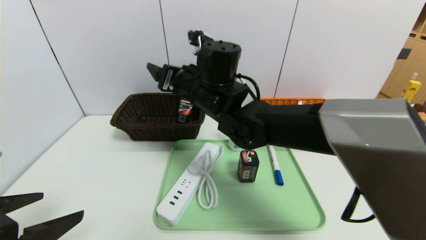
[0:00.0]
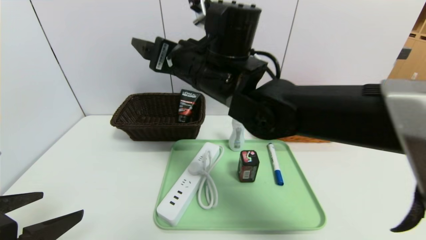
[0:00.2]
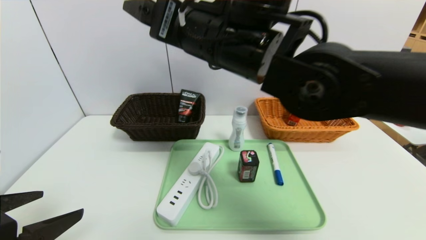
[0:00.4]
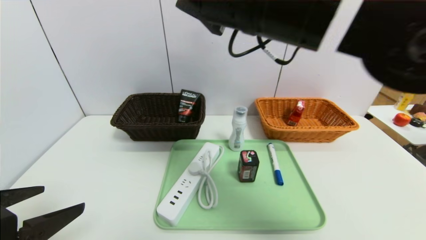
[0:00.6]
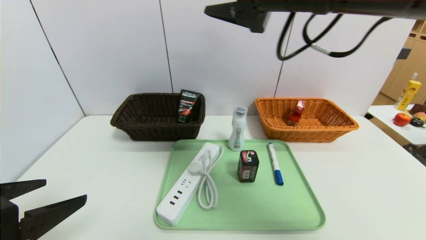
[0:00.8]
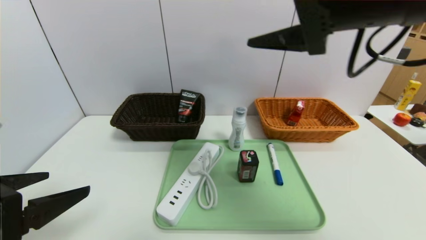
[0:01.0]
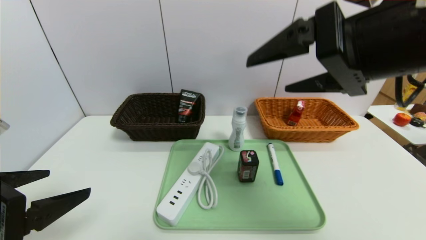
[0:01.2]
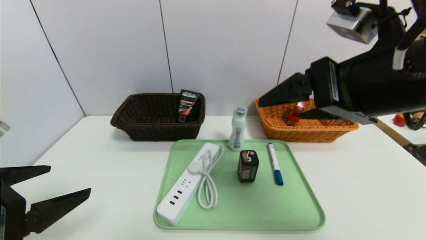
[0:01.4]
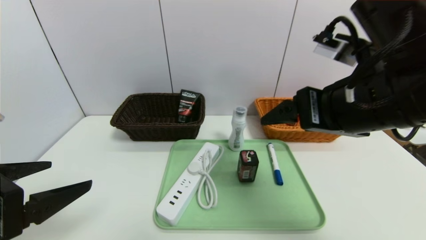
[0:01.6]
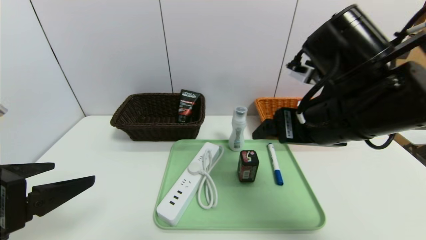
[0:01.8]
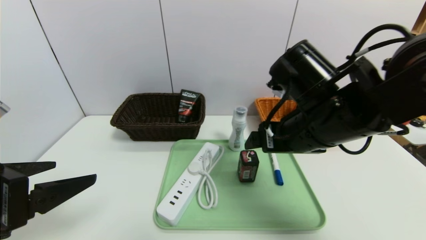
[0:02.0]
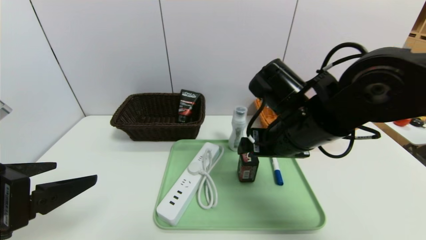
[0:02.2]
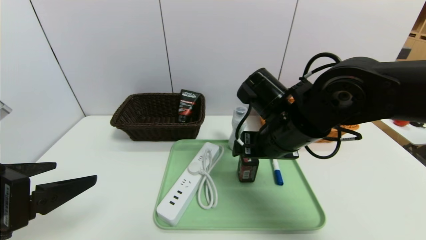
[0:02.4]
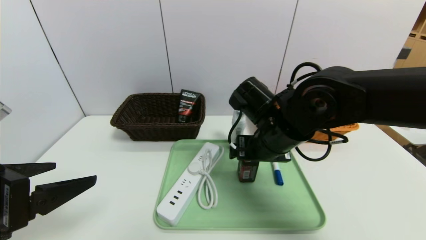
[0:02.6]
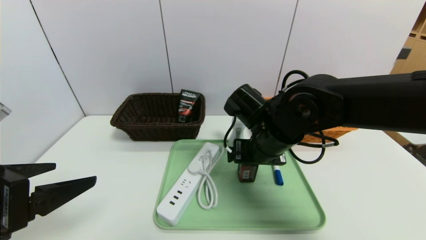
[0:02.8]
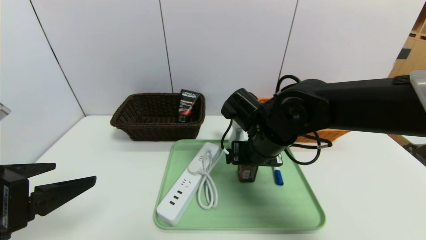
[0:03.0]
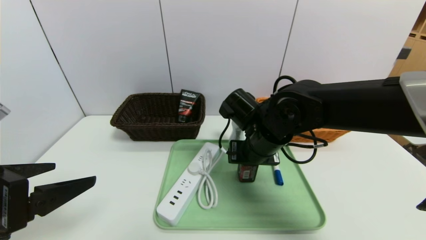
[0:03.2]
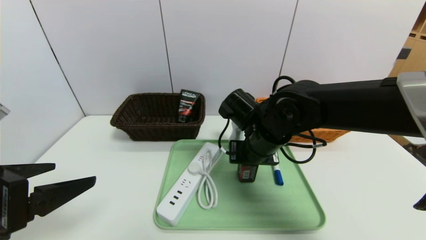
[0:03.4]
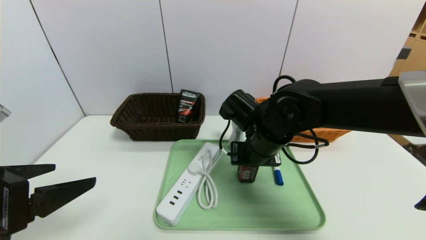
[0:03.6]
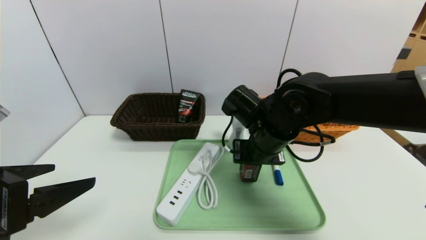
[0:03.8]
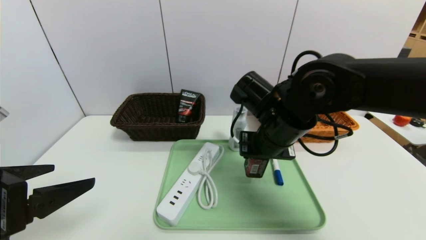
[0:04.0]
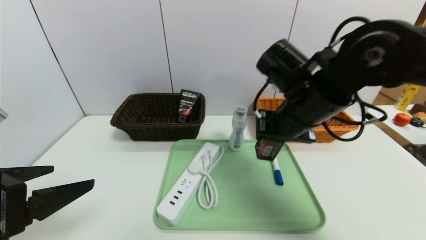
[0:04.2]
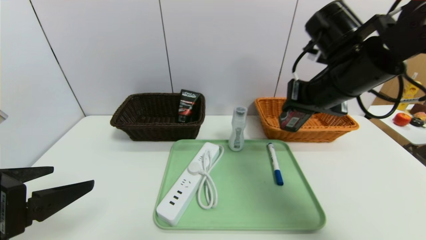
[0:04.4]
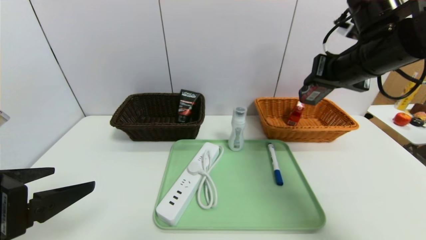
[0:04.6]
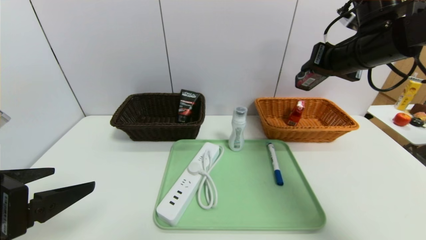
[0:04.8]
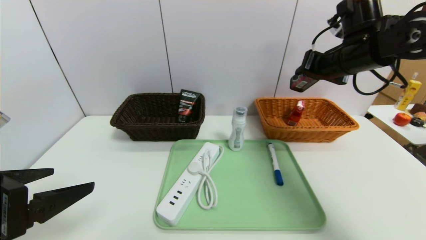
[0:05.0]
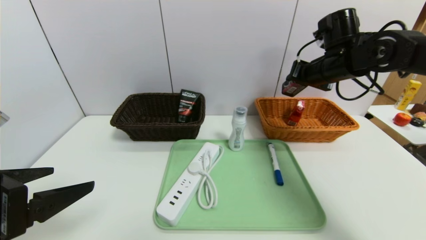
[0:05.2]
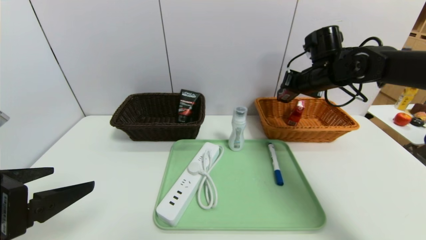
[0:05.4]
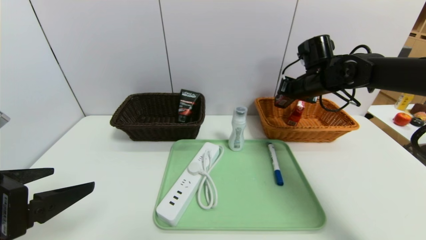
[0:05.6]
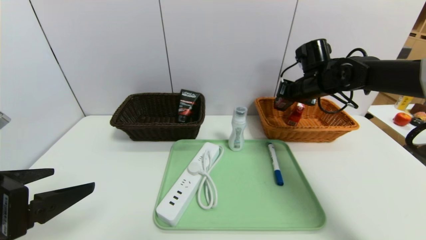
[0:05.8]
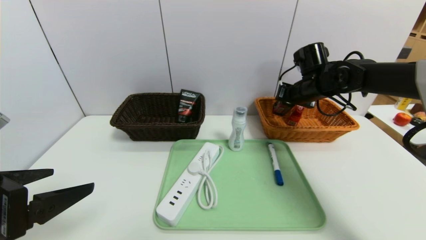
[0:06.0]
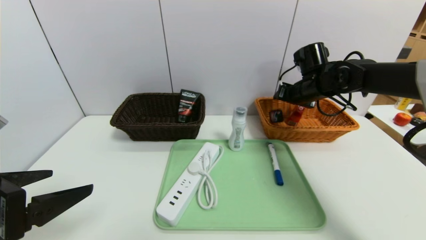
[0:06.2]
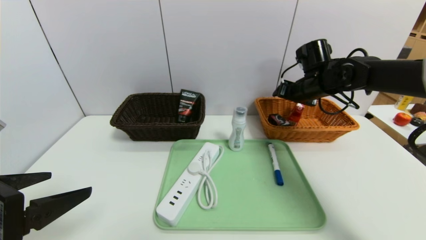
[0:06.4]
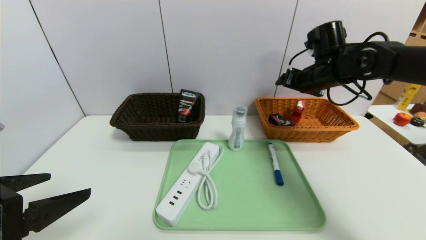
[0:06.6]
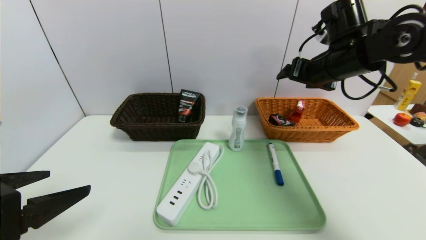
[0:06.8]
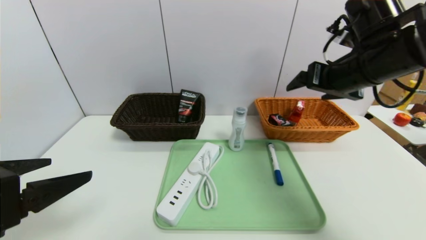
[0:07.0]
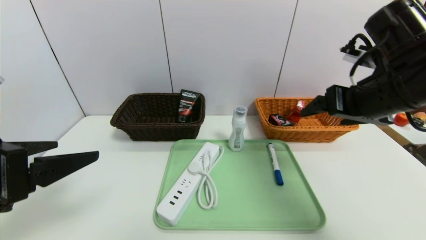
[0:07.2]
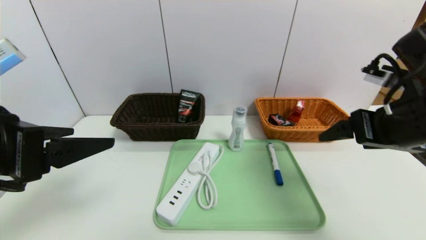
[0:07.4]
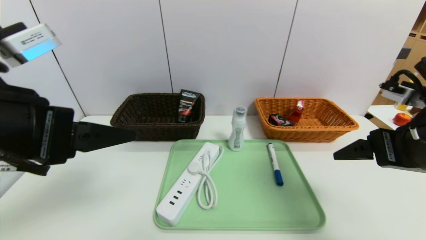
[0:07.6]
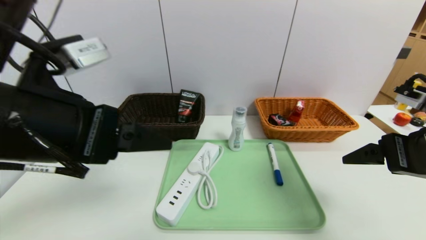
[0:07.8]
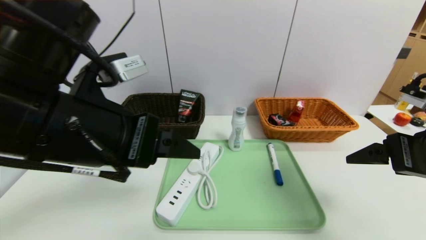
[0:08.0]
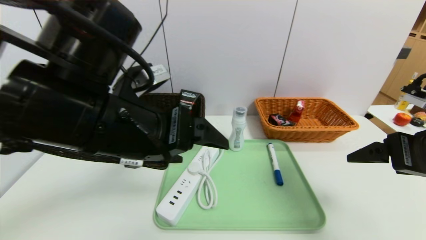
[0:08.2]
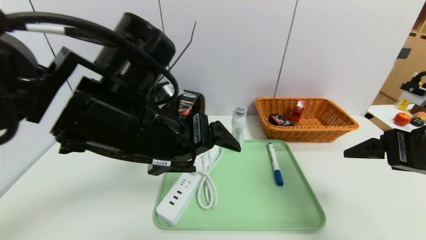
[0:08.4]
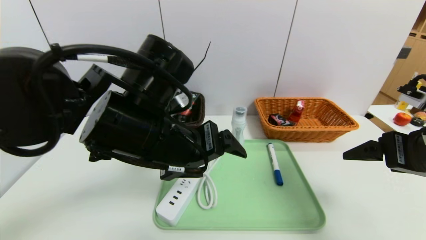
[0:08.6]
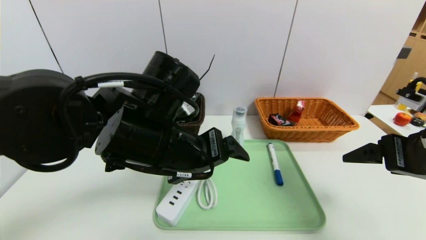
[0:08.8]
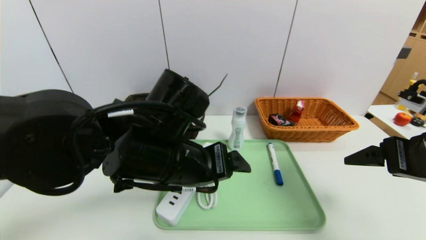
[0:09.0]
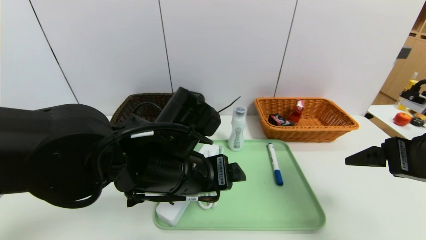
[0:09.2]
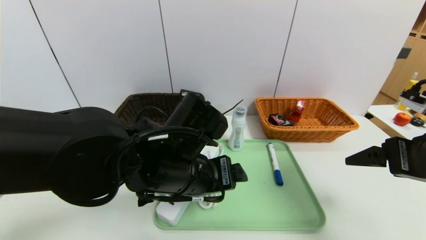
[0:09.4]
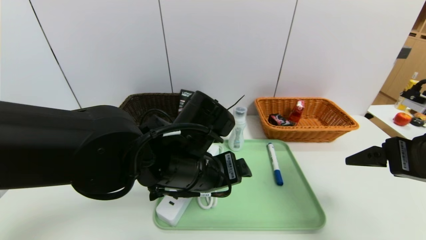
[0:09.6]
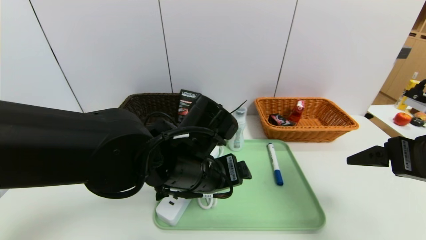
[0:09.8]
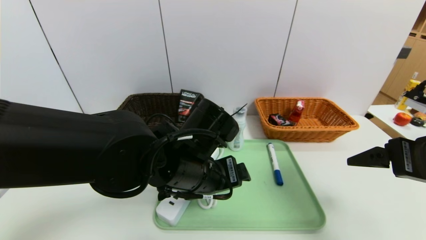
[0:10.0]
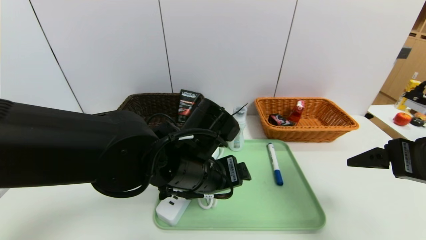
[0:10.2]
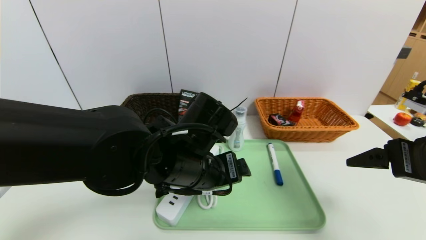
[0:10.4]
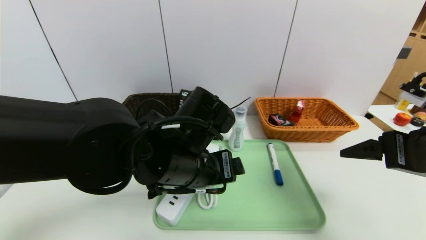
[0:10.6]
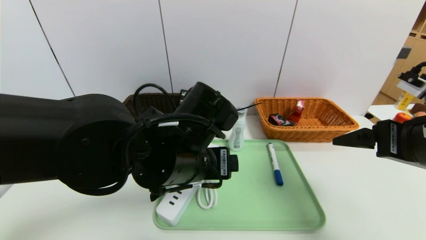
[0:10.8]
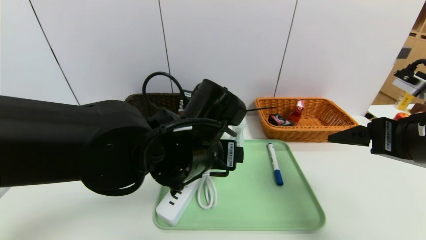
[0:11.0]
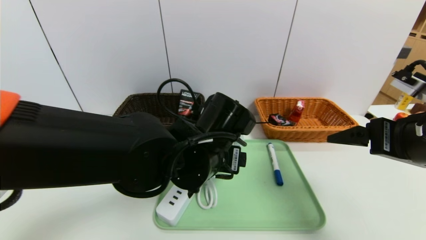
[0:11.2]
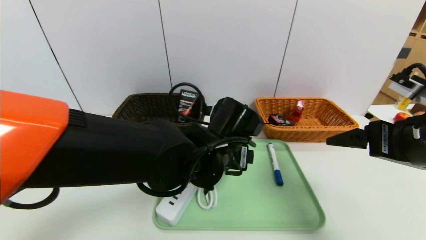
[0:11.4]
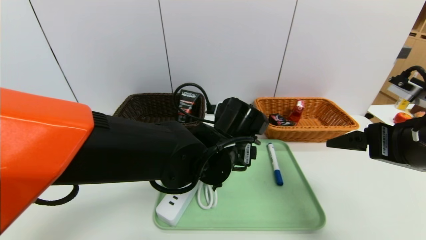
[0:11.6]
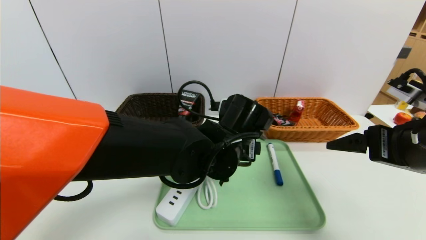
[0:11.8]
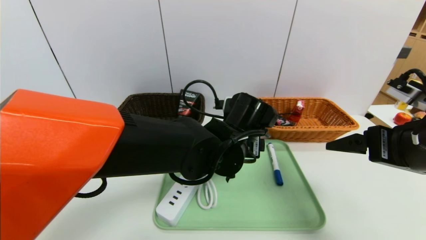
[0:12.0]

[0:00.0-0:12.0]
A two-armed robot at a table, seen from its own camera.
Task of the whole recording: place the food in the right basket with the right gripper, and place the non food items in the left basket with the left gripper.
Step, 0:00.0 to 0:06.4: Grasp the square chewing gum and put it in the right basket.
0:00.0 to 0:01.6: The right gripper shifts approximately 25 cm to the right and backward.
0:01.6 to 0:03.0: The right gripper shifts about 20 cm downward, forward and to the left.
0:03.0 to 0:04.4: The right gripper shifts some 15 cm upward and to the right, and closes.
0:04.4 to 0:06.0: The right gripper is displaced forward and downward by approximately 15 cm.
0:06.0 to 0:07.6: The left gripper goes some 10 cm upward and to the right. Meanwhile the right gripper is displaced backward by roughly 25 cm, and opens.
0:07.6 to 0:09.0: The left gripper travels to the right, downward and forward by some 20 cm.
0:09.0 to 0:10.4: The grippers make only small movements.
0:10.4 to 0:12.0: The left gripper moves to the right and forward, approximately 10 cm.

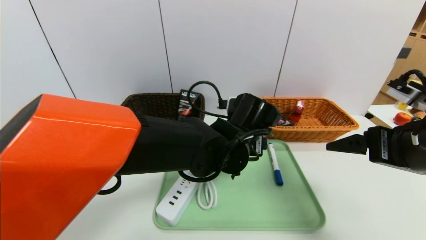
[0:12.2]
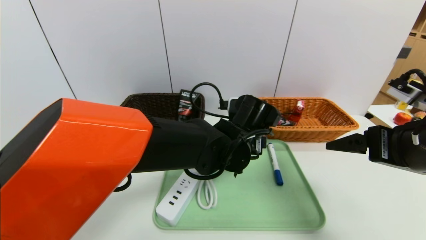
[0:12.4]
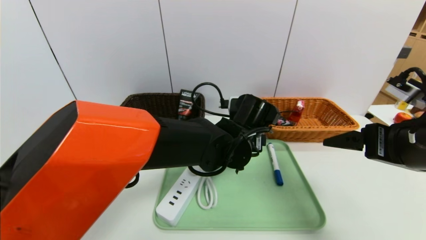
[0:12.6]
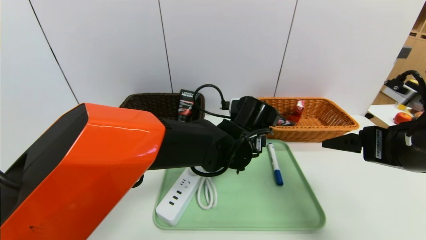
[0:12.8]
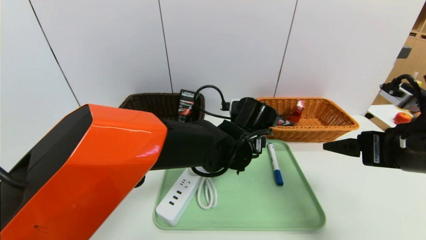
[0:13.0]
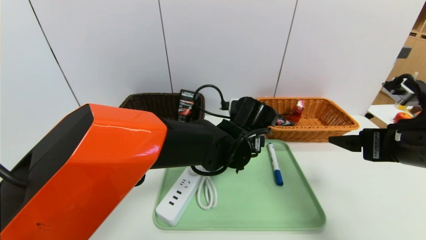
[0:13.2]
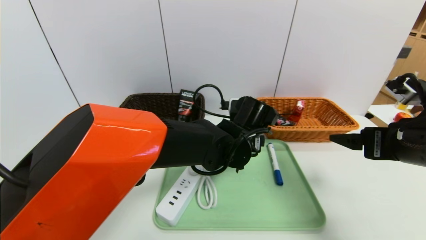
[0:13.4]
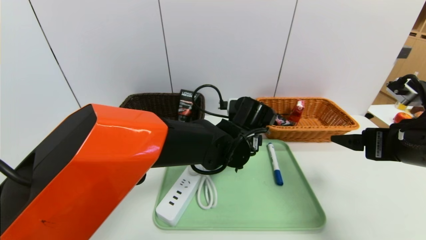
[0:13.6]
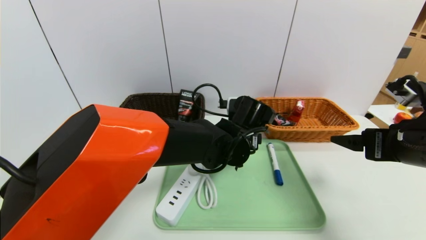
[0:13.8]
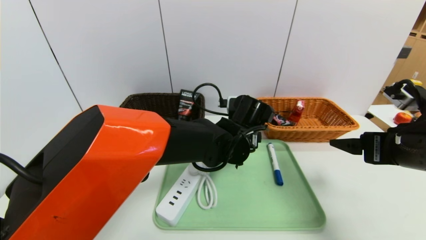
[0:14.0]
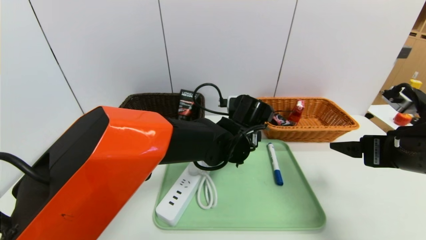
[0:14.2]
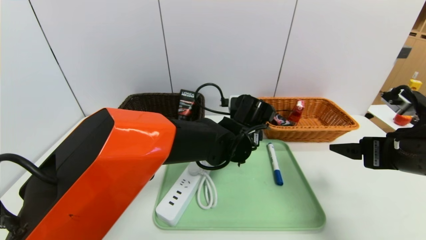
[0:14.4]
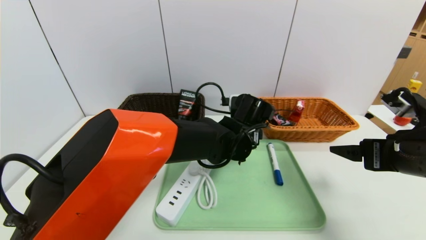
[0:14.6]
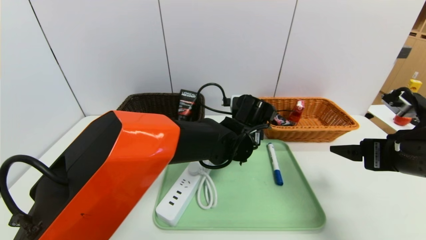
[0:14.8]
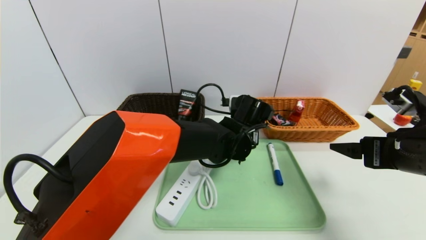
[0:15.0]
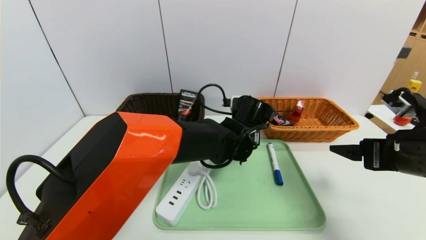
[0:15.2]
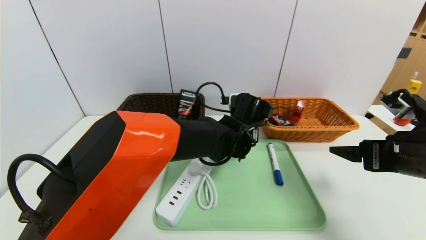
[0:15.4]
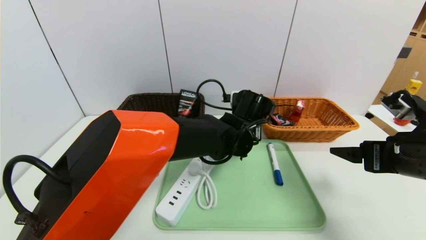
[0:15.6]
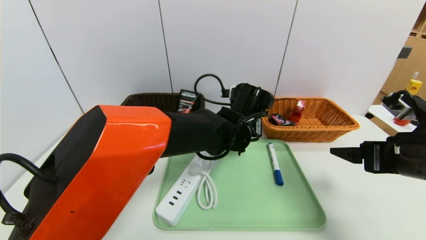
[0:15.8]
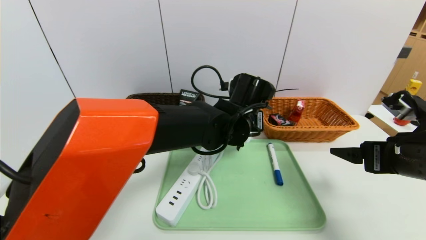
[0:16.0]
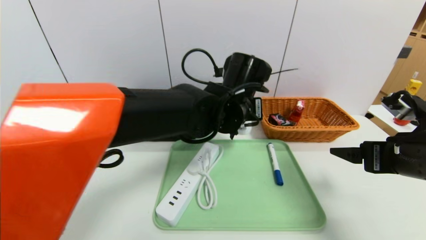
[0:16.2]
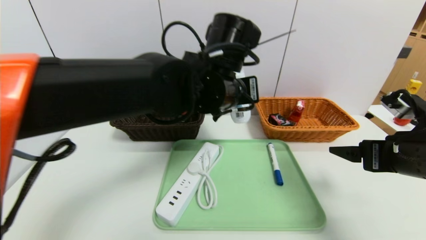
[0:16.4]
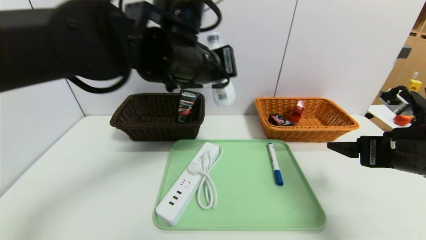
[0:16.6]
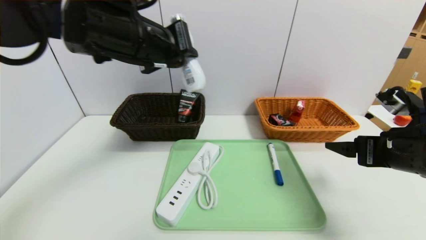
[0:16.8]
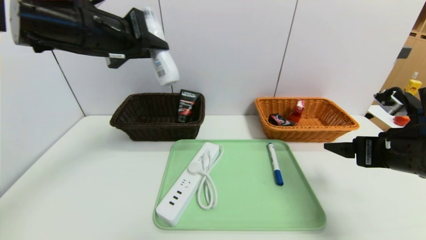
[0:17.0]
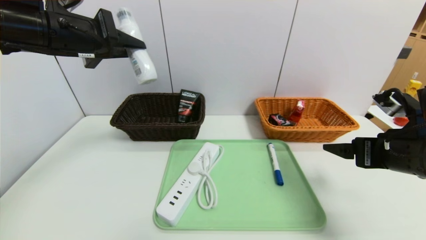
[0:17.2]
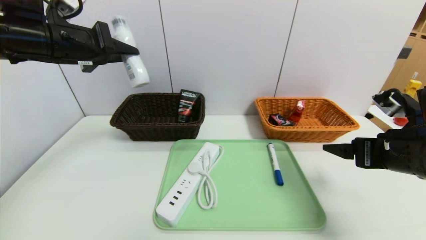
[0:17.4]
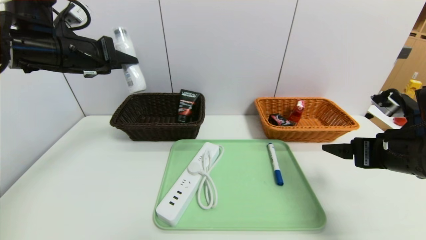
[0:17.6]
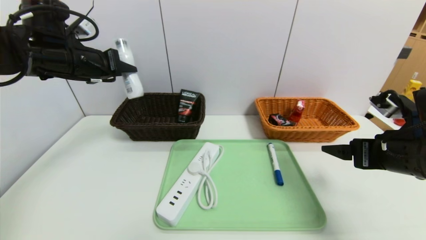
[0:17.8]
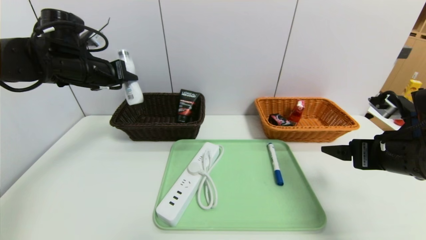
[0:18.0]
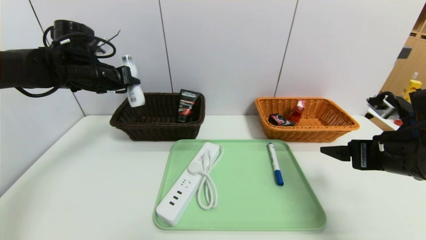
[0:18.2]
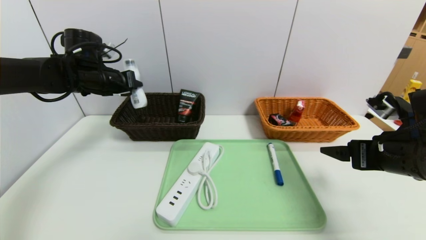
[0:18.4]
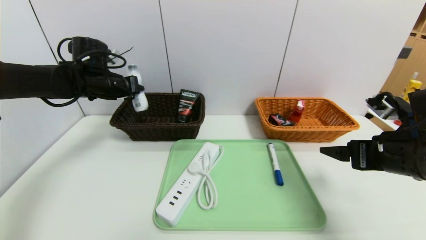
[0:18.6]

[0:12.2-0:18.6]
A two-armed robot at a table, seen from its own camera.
Task of the whole recording: place the food in the right basket with the right gripper, and place the non food items in the left basket with the left gripper.
0:12.2 to 0:13.8: The grippers move only a little.
0:13.8 to 0:15.4: The left gripper closes up.
0:15.4 to 0:17.0: The left gripper shifts approximately 35 cm to the left and upward.
0:17.0 to 0:18.6: The left gripper is displaced forward, downward and to the left by about 20 cm.
